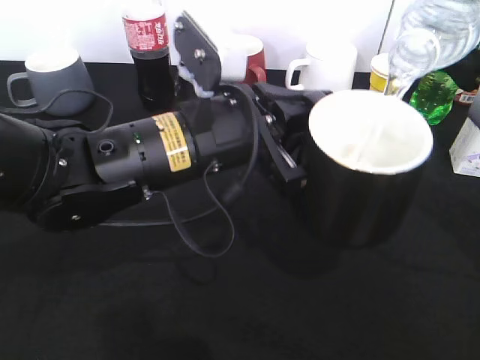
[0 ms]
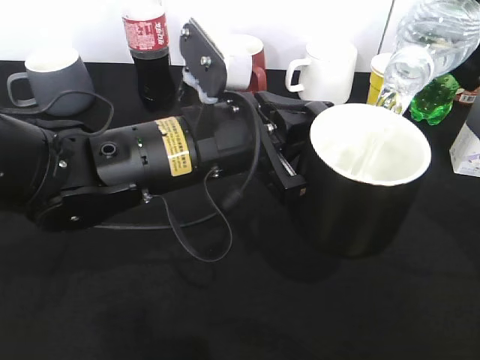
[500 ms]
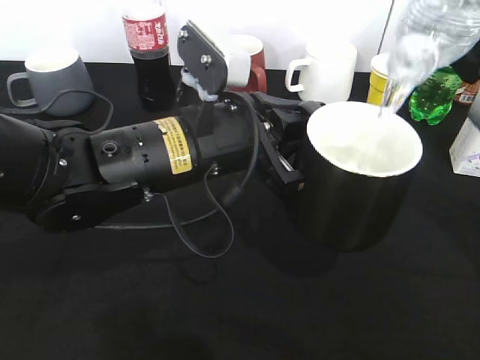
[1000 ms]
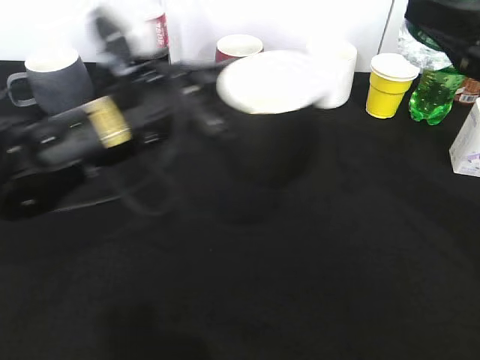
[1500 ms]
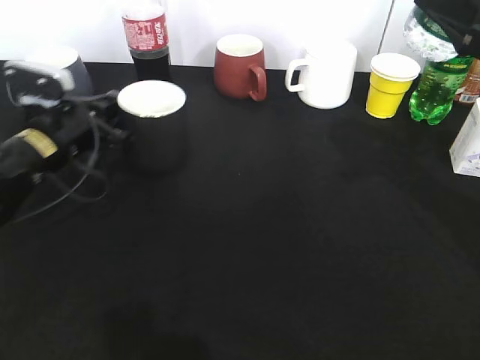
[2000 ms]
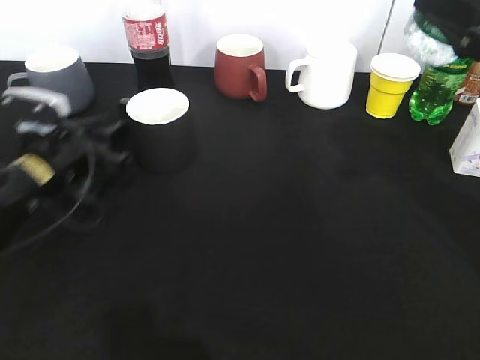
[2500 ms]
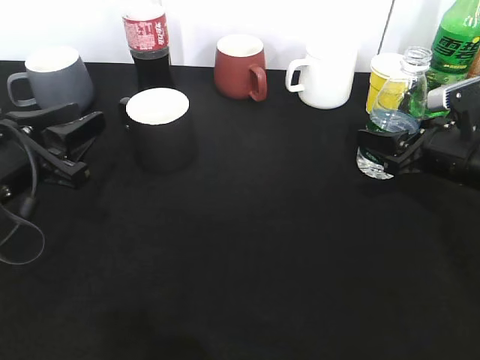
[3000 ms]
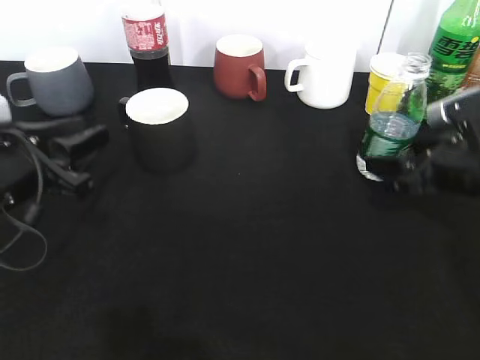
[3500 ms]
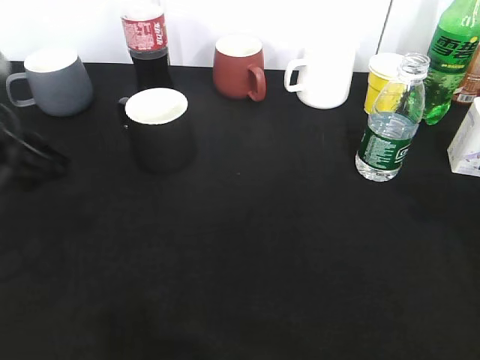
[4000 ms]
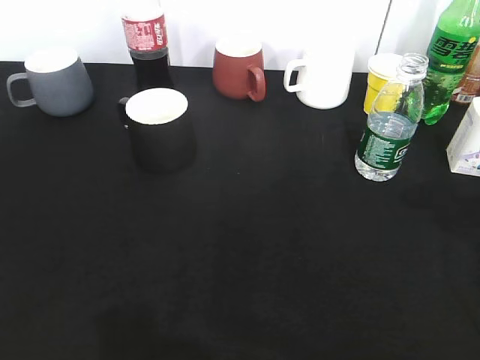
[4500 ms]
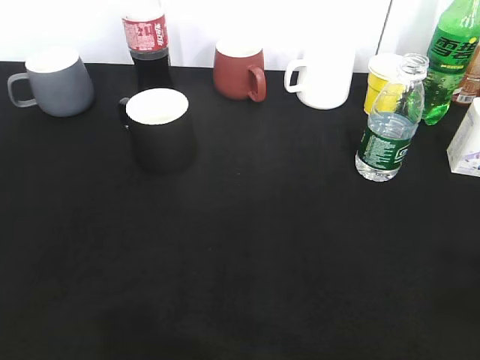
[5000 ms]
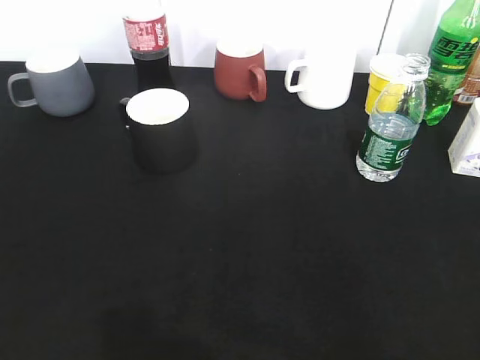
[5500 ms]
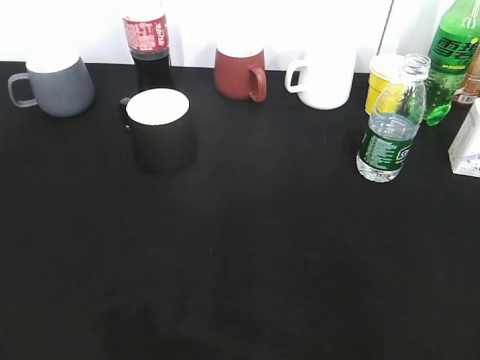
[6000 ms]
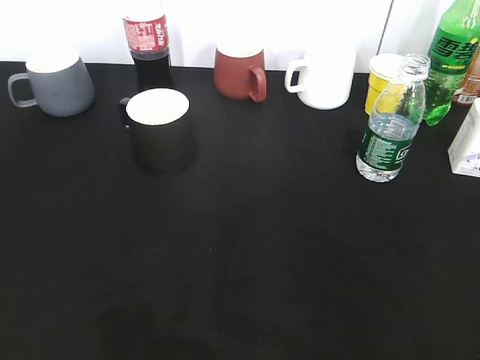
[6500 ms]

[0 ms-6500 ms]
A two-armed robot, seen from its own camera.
Step, 1500 ms to 2000 ms: Place the black cup on the table with left gripper.
Step, 2500 ms to 3500 ms: Place the water bottle on the table with right gripper.
0 ms to 2000 ms: The left gripper heads to the left, forward and downward, covering some 25 cm.
2000 ms to 4500 ms: The left gripper shifts approximately 35 cm backward and upward, and opens up. The right gripper travels backward and to the right by approximately 10 cm, reaches some 15 cm downward, then returns, and opens its fingers.
4500 ms to 6500 ms: The right gripper travels backward by some 20 cm.

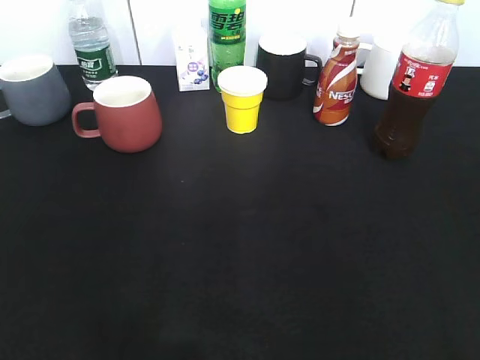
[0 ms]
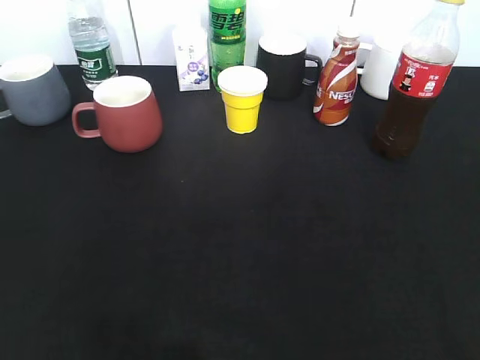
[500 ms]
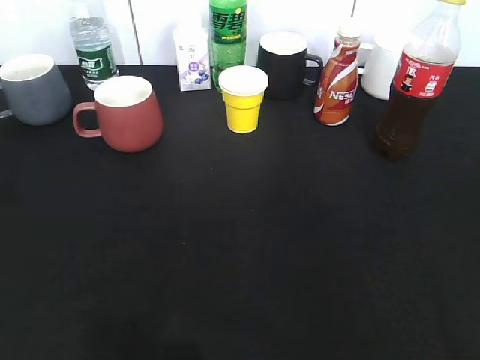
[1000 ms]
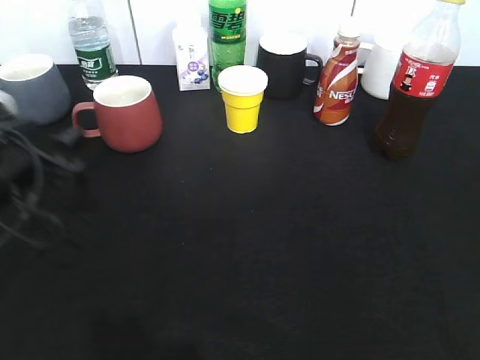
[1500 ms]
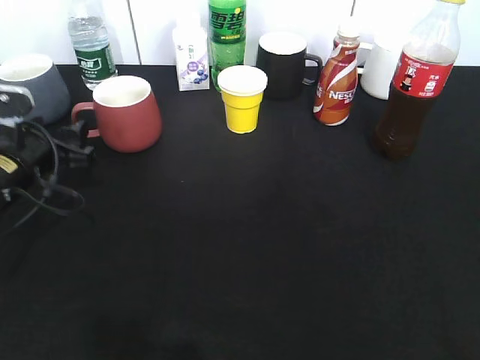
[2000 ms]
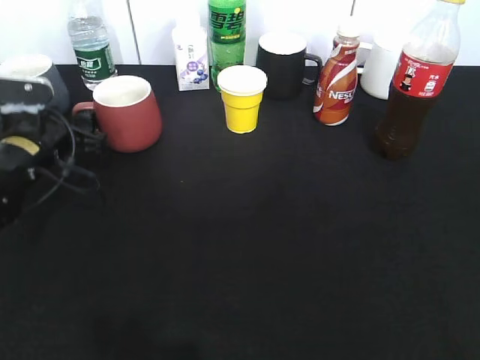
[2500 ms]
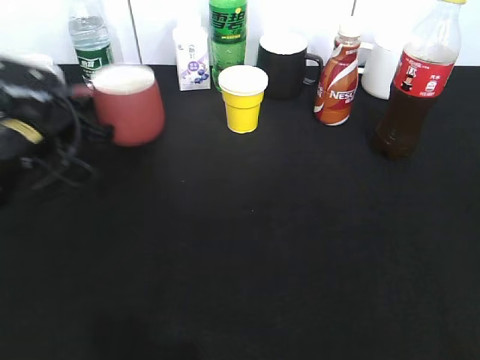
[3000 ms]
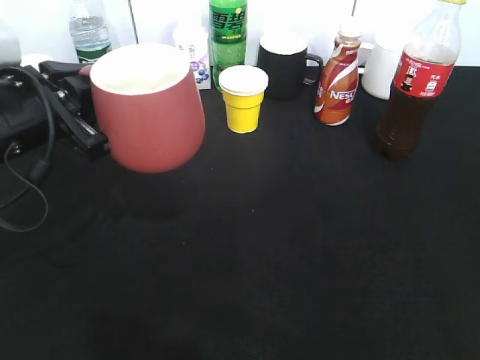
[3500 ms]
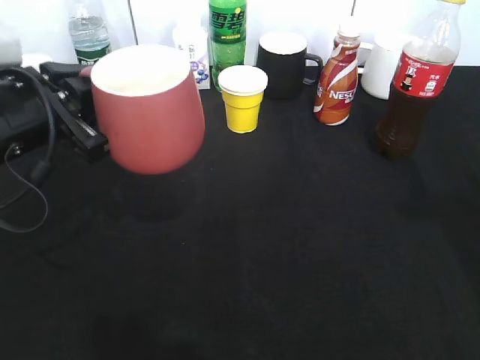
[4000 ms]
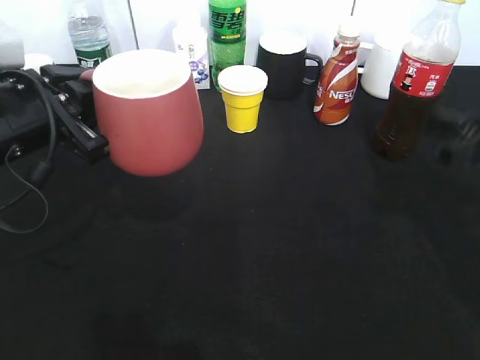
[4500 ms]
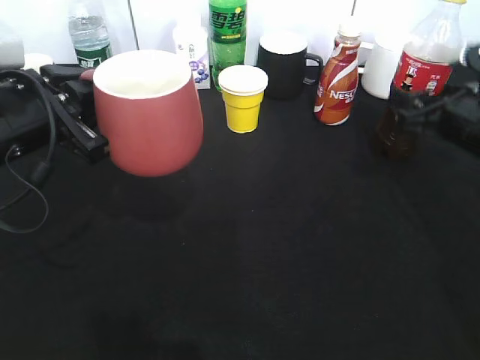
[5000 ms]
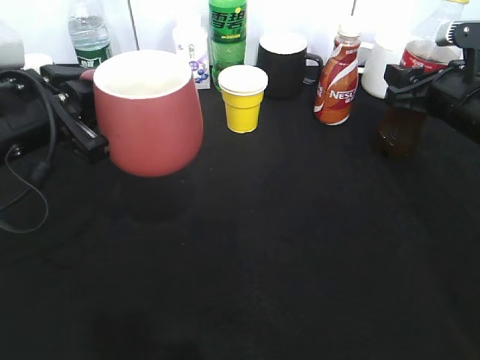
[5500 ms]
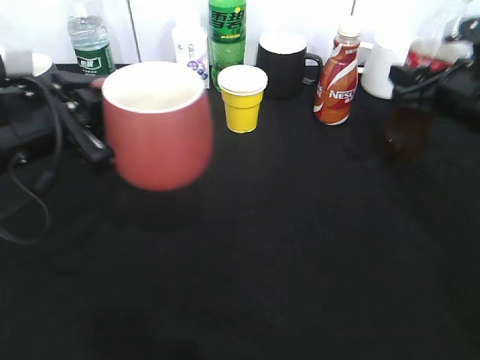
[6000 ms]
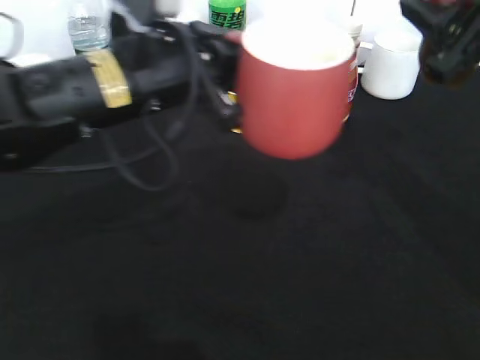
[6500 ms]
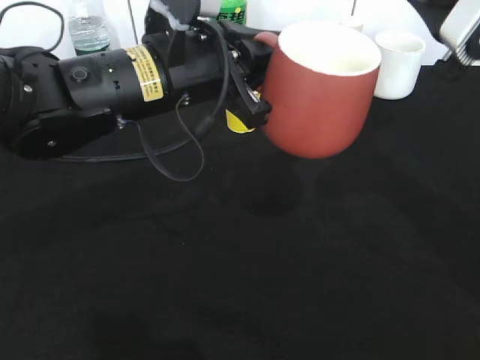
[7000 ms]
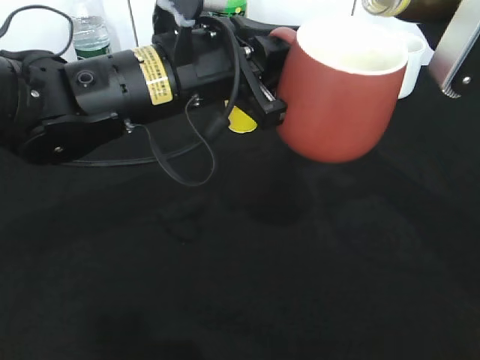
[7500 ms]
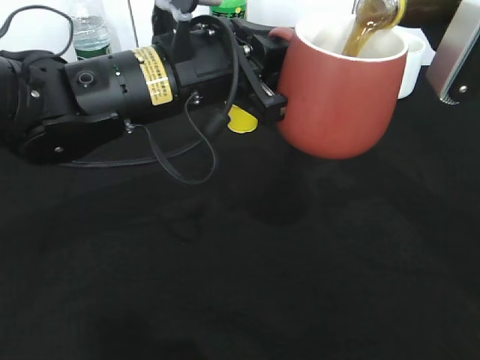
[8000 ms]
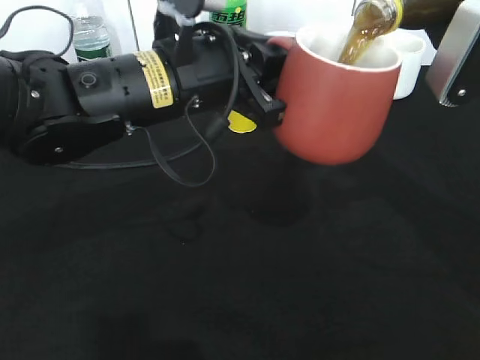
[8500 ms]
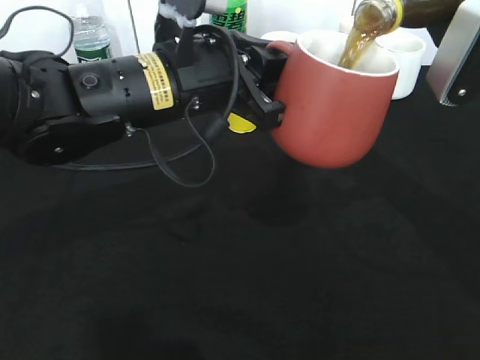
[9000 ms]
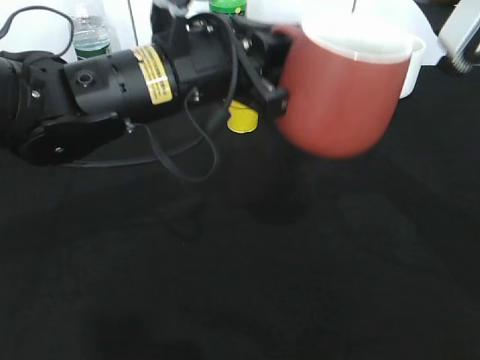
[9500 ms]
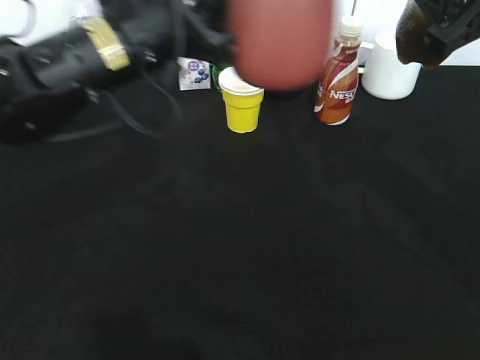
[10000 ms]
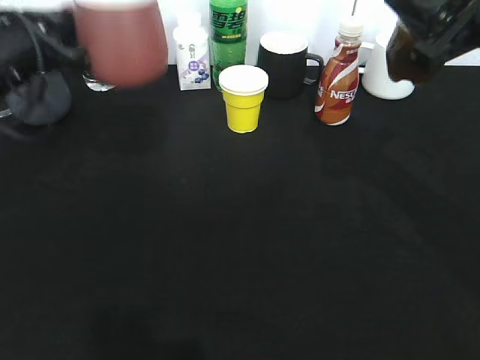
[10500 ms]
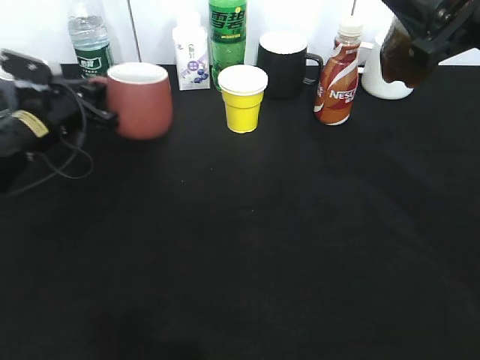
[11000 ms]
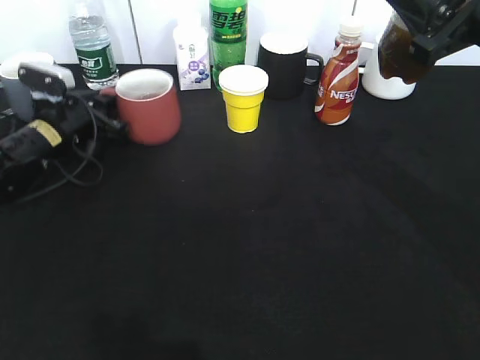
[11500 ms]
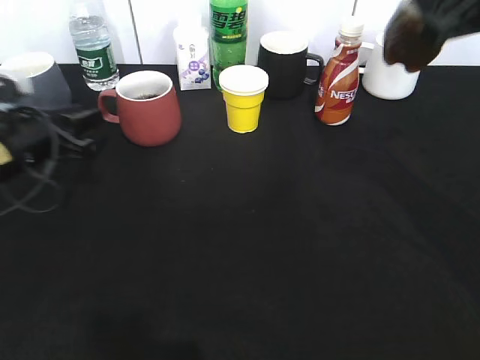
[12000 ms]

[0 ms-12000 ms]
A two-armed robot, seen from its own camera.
Step, 1000 ms to 2500 ms: Grasp the red cup with left gripper.
Step, 3000 ms to 4000 ms: Lift the red cup with left gripper.
Step, 4500 ms to 5500 ms: Grasp the bottle with cola with right gripper.
Step, 6000 ms to 9500 ms: Pour the cola from bottle to cup with right gripper.
0 ms to 2000 ms: The left gripper travels forward and downward by roughly 35 cm.
2000 ms to 4000 ms: The left gripper is displaced upward by roughly 10 cm, and closes its fingers, while the right gripper moves forward, some 15 cm.
4000 ms to 6000 ms: The right gripper is displaced forward and downward by approximately 25 cm, and closes.
6000 ms to 8000 ms: The left gripper shifts roughly 15 cm to the right; the right gripper goes about 10 cm upward and backward.
8000 ms to 10000 ms: The left gripper ends up approximately 5 cm from where it was.
10000 ms to 12000 ms: The left gripper travels to the left and downward by some 20 cm, and opens.

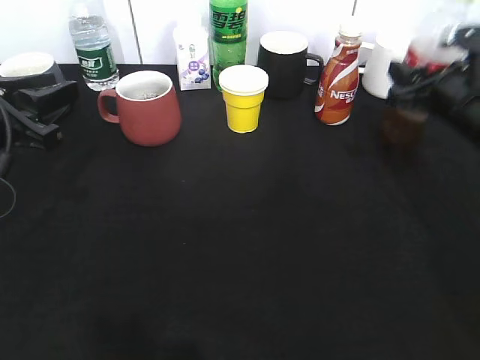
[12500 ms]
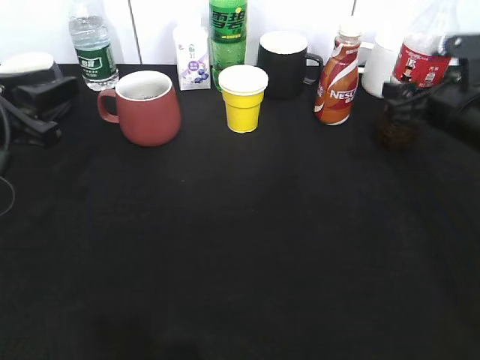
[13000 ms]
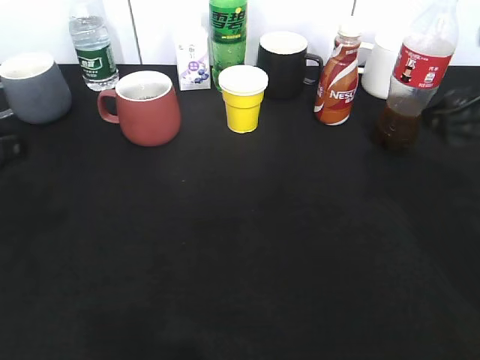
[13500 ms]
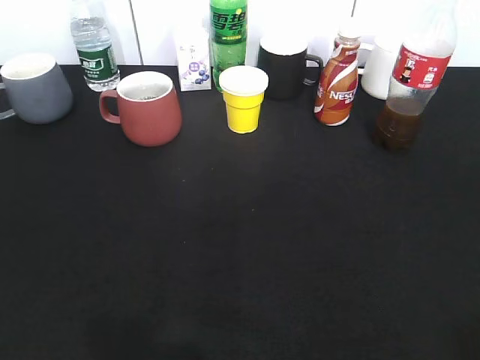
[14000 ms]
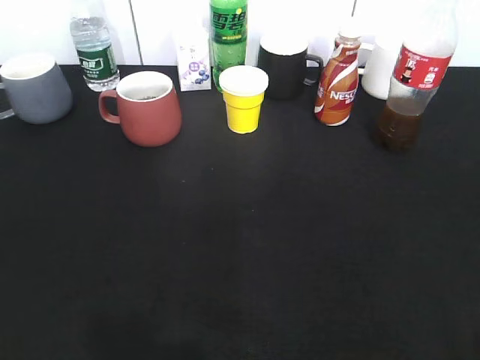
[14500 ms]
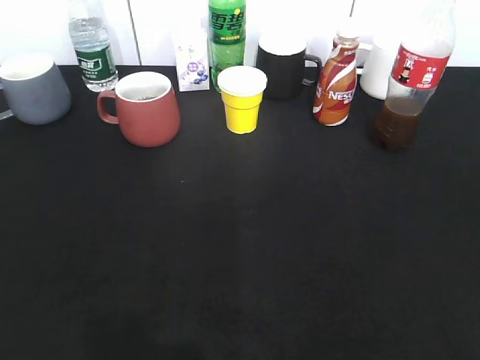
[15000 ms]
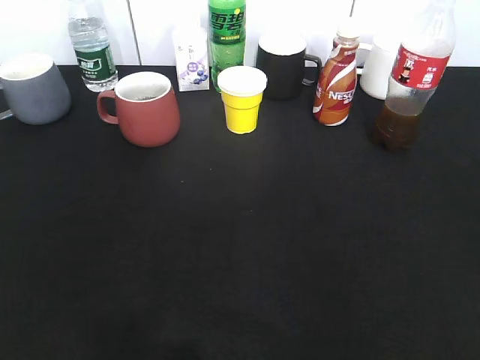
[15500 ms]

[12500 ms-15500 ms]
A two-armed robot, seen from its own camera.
12500 ms to 14000 ms: Both grippers move backward and upward, about 35 cm. The right gripper opens its fingers.
14000 ms to 15500 ms: The right gripper closes.

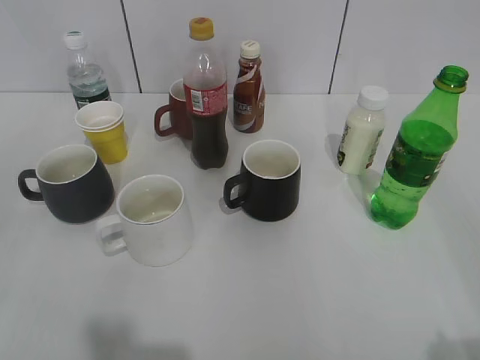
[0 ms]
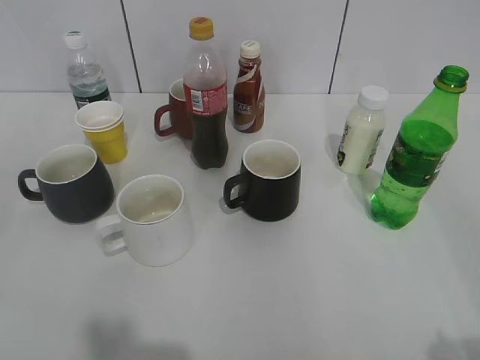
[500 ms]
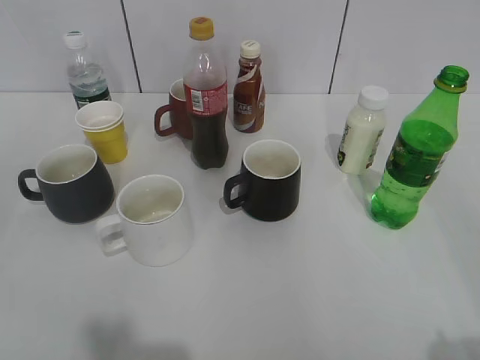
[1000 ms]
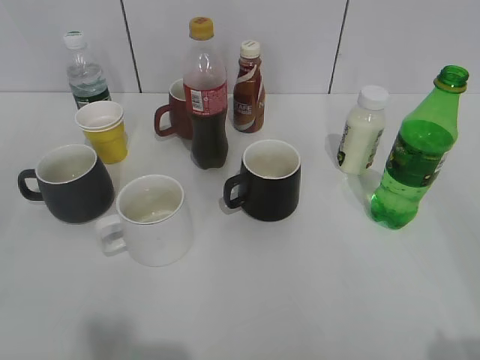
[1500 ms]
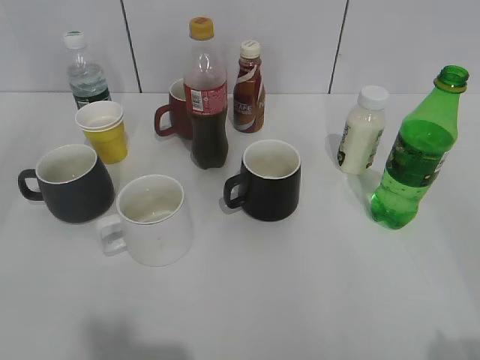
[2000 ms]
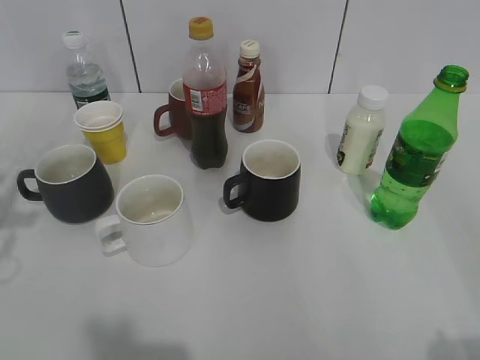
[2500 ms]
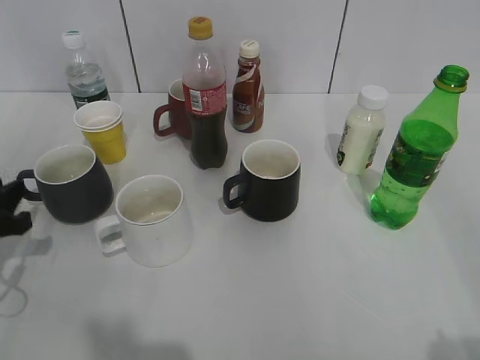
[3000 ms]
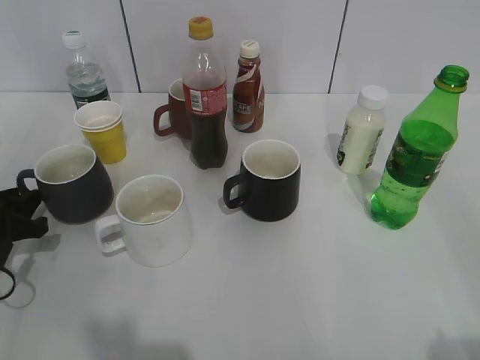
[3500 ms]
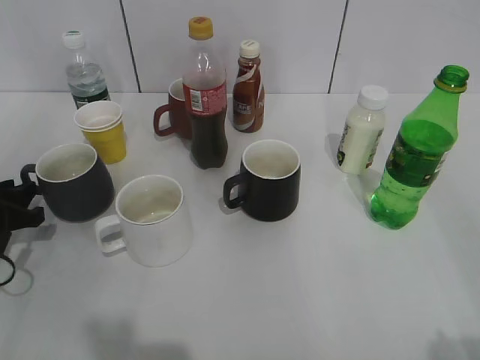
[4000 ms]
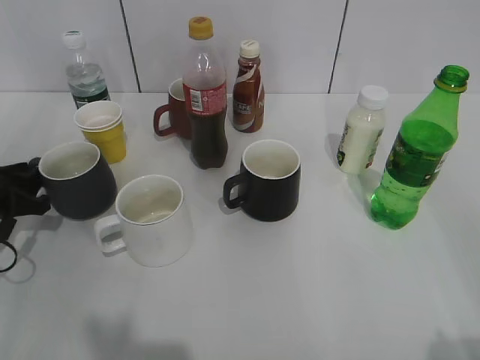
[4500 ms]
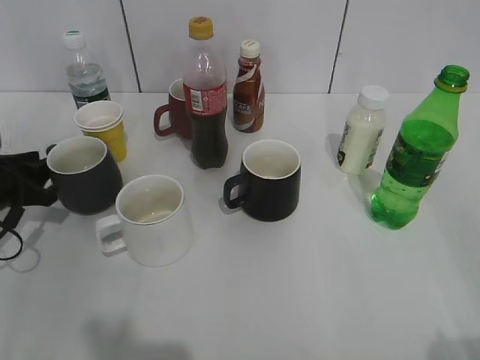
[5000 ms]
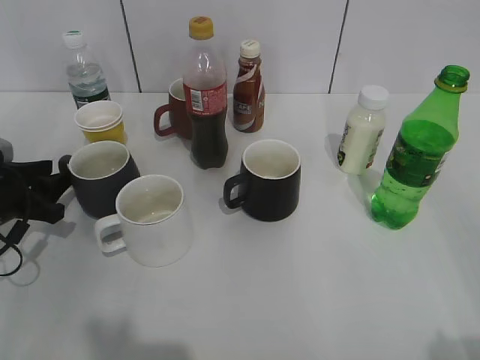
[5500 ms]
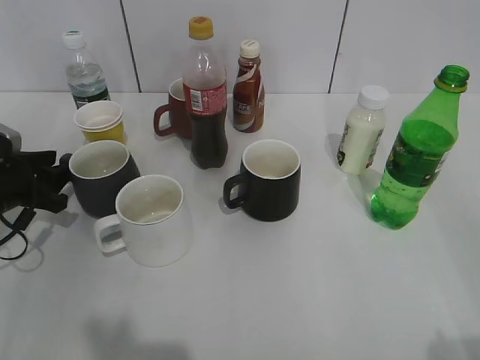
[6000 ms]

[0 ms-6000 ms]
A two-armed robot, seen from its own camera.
2000 ms to 4000 ms: The left gripper is displaced downward and forward by roughly 35 cm.
